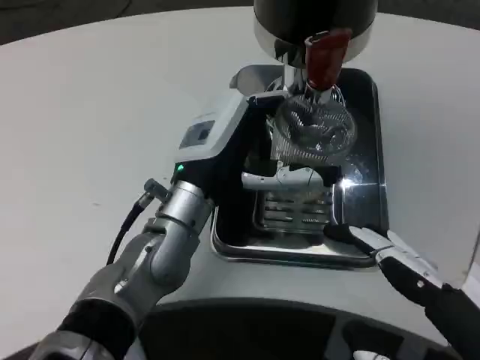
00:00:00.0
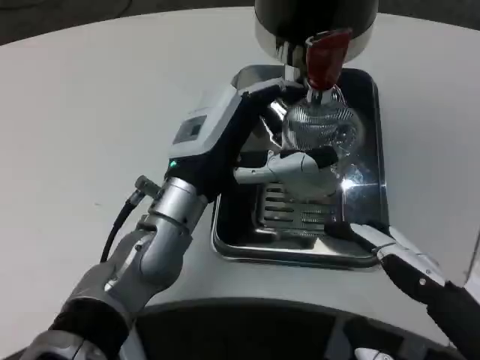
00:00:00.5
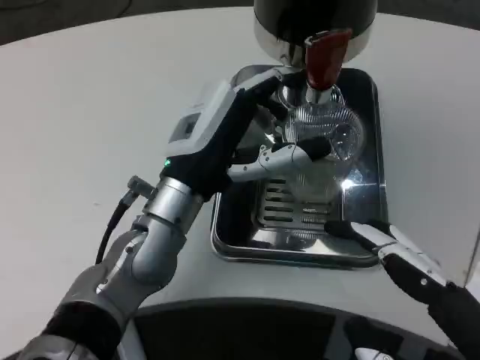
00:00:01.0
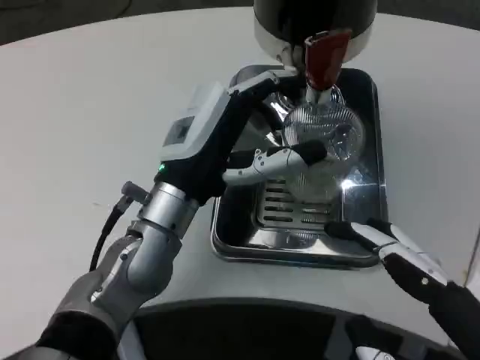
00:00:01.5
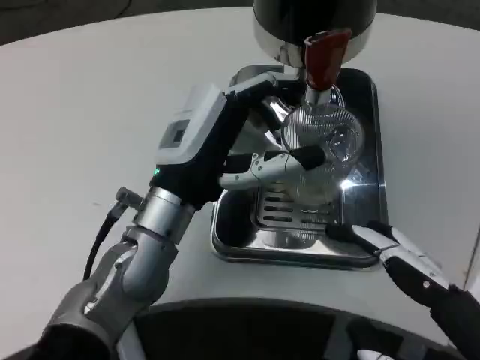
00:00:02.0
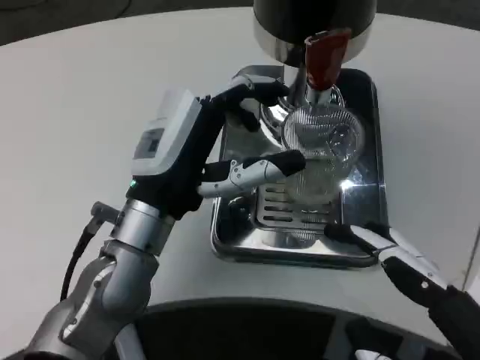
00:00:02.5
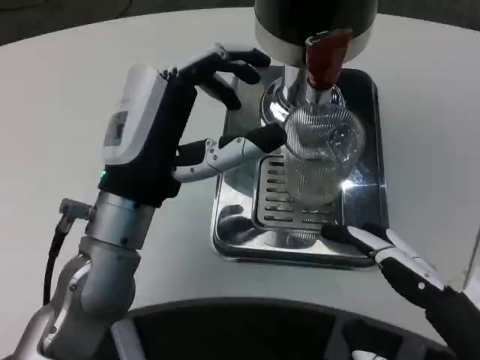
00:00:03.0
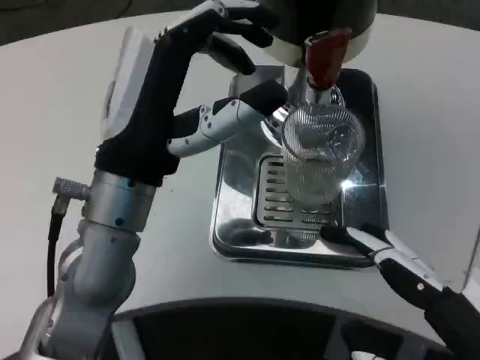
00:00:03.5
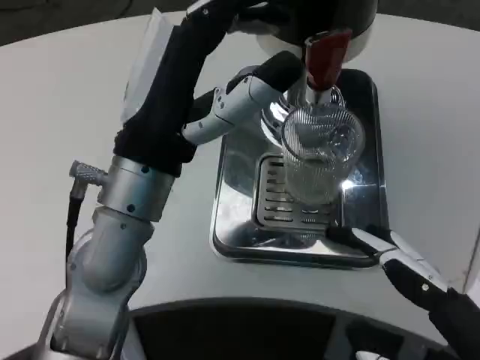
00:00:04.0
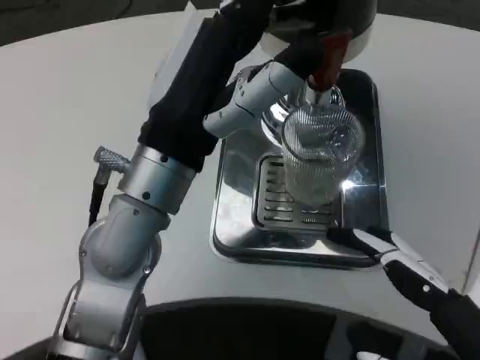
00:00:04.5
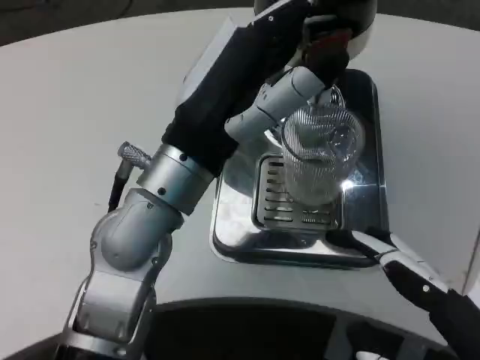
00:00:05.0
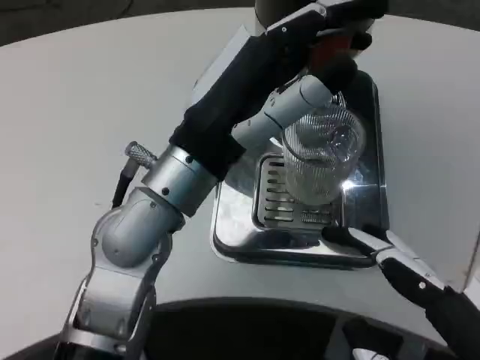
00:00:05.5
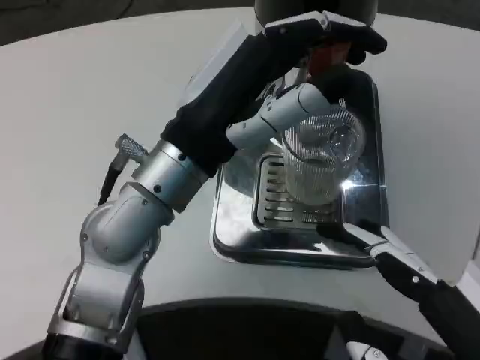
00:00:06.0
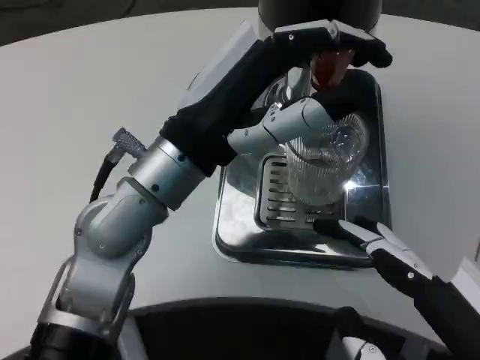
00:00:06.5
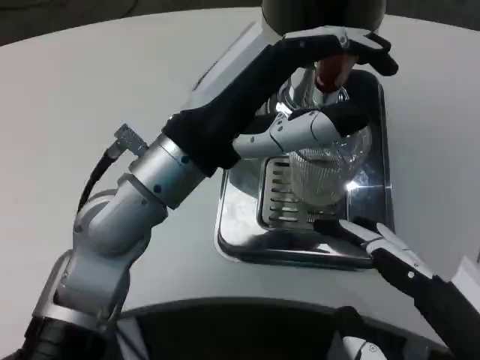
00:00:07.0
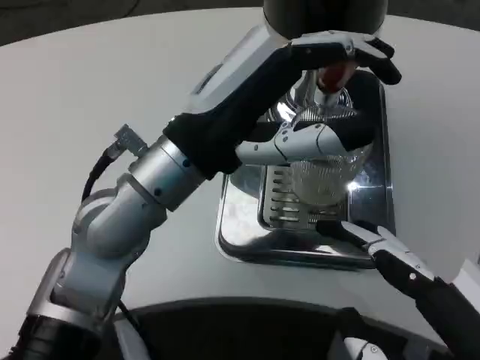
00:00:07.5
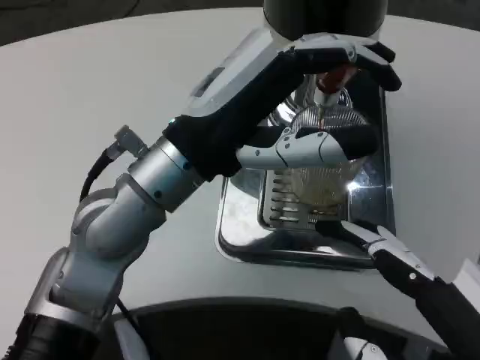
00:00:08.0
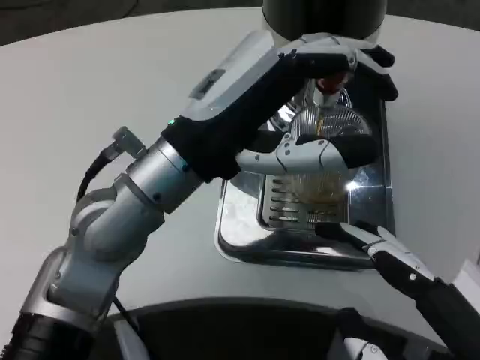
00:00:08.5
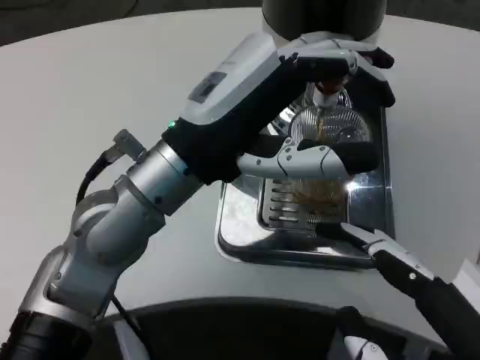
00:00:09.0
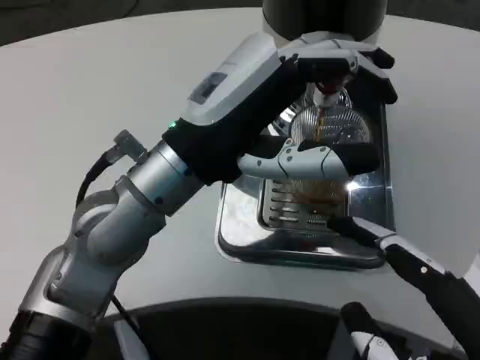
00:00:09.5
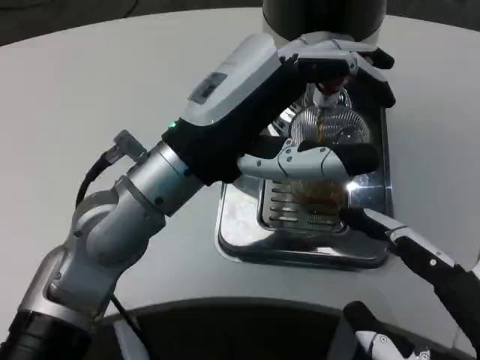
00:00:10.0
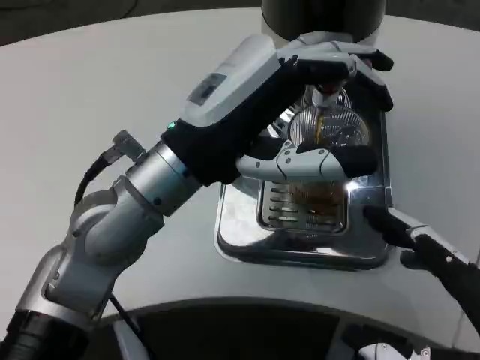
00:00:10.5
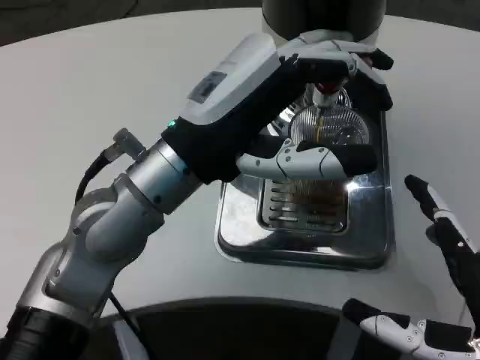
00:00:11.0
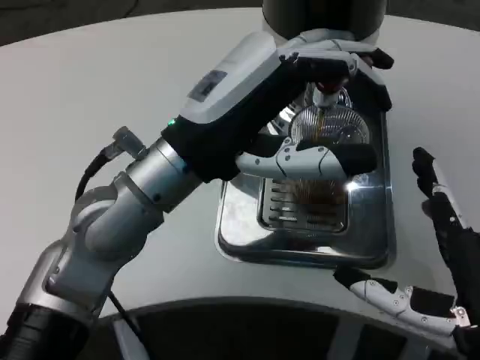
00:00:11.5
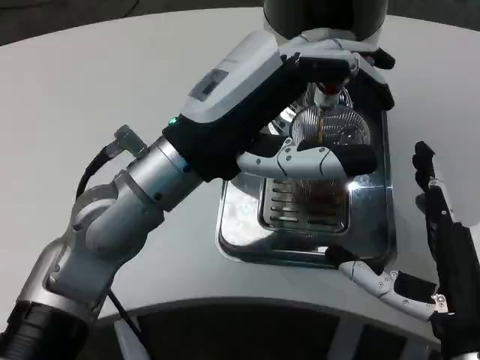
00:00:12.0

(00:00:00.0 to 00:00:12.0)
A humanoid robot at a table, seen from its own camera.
Task of the whole recording: Grasp the cup under the faucet to collect the drink, then remove the cup.
00:00:00.0 - 00:00:02.0: There are only small adjustments of the hands.
00:00:02.0 - 00:00:04.0: The left hand travels upward by roughly 5 cm.
00:00:08.0 - 00:00:10.0: The hands stay close to where they were, moving slightly.
00:00:10.0 - 00:00:12.0: The right hand shifts approximately 10 cm forward and downward.

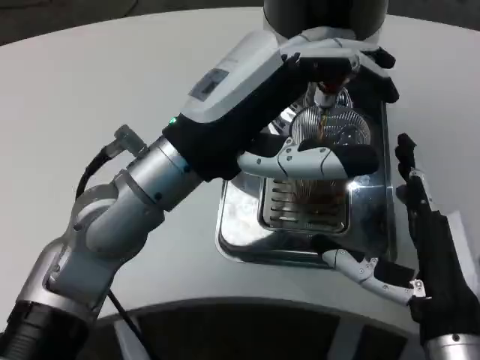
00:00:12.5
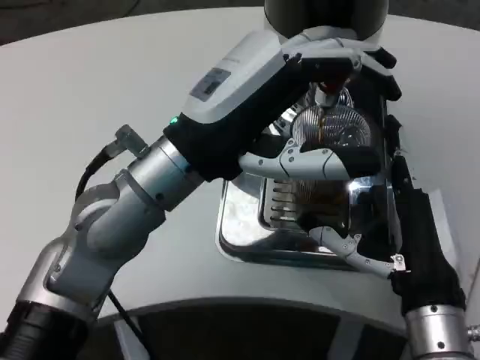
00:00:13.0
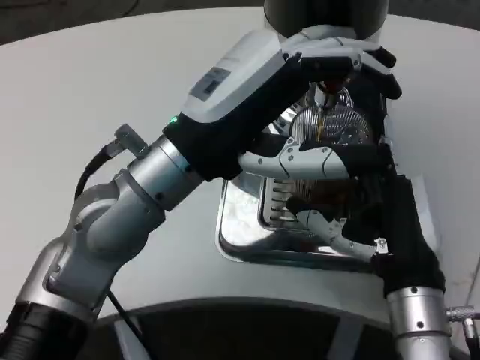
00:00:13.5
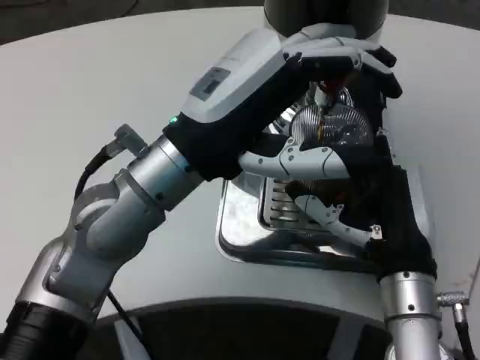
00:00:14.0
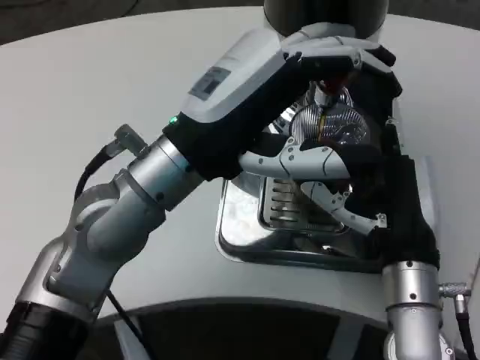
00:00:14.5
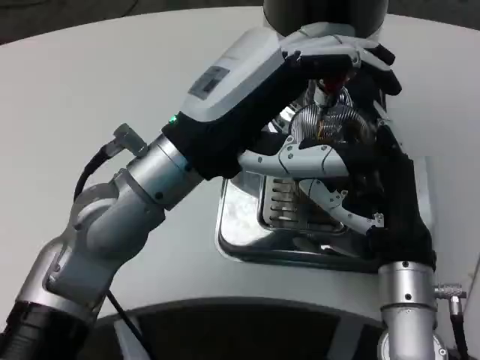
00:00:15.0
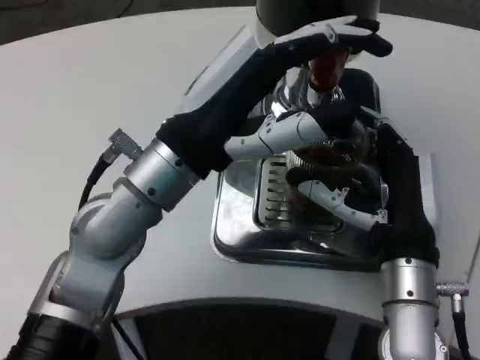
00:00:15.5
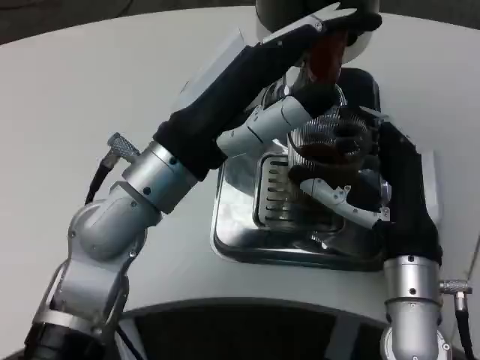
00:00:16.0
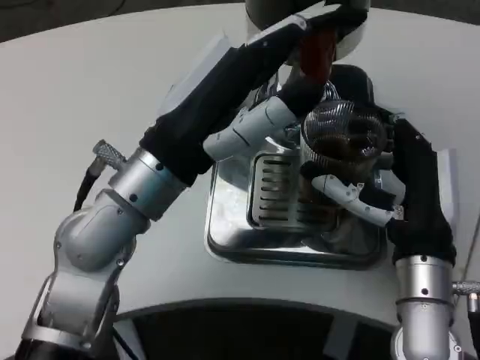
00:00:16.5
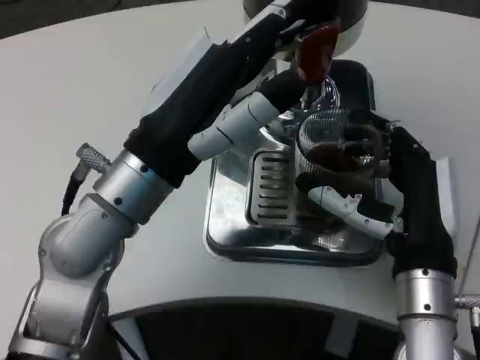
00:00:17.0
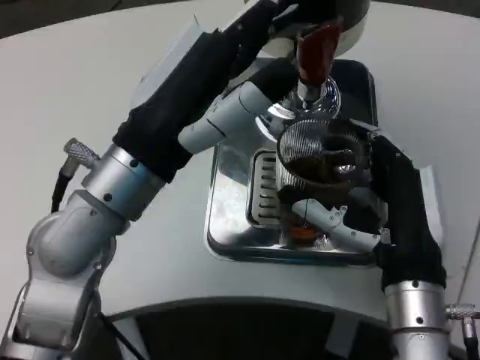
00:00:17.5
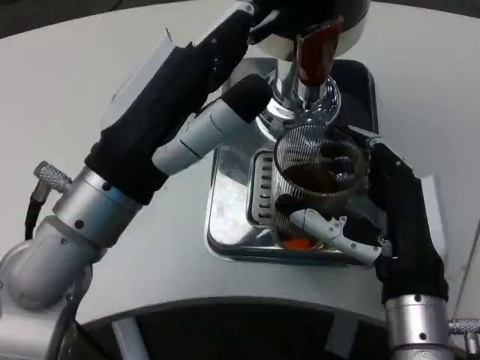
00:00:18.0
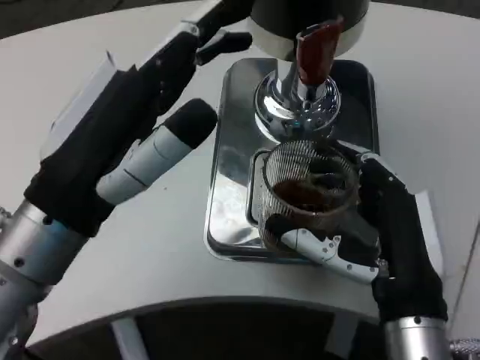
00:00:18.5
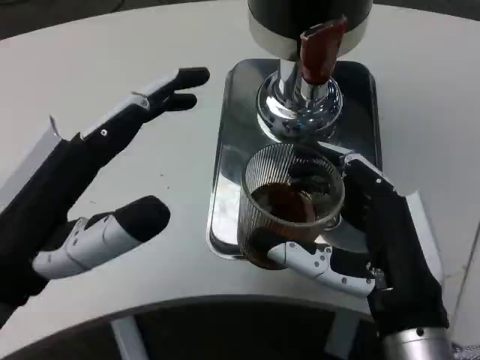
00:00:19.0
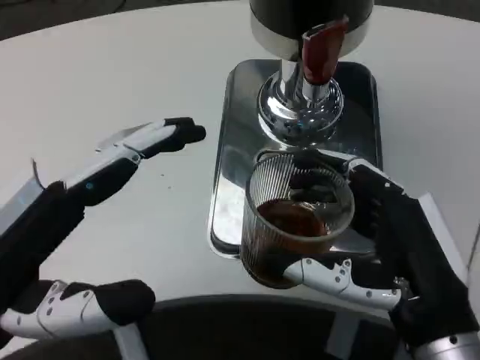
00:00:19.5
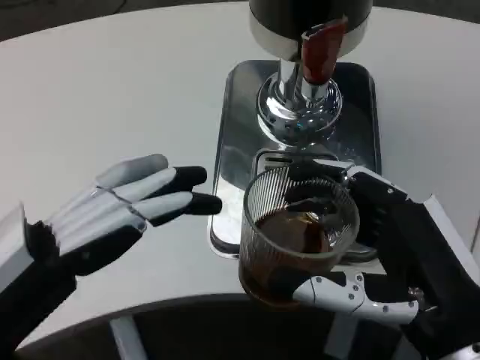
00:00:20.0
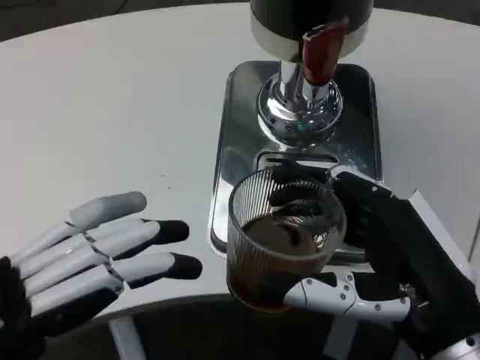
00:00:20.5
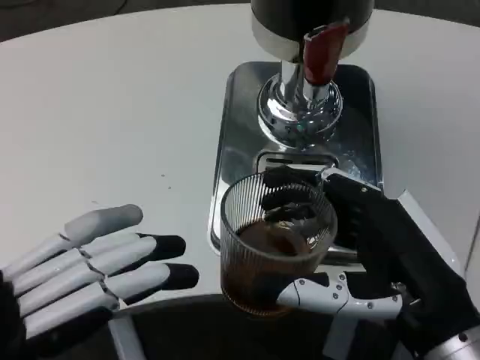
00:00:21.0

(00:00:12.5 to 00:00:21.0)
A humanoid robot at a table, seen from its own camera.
Task of the whole recording: Grasp the cup under the faucet to collect the drink, then remove the cup.
00:00:12.5 - 00:00:14.5: The right hand heads forward, covering roughly 5 cm.
00:00:16.5 - 00:00:19.0: The left hand travels backward and to the left by some 15 cm, while the right hand is displaced backward by some 10 cm.
00:00:19.0 - 00:00:21.0: The right hand changes place by roughly 5 cm. The left hand moves backward and to the left, approximately 10 cm.

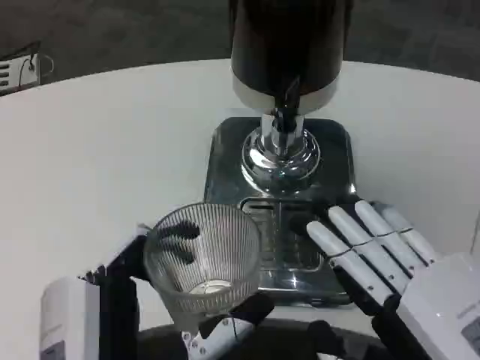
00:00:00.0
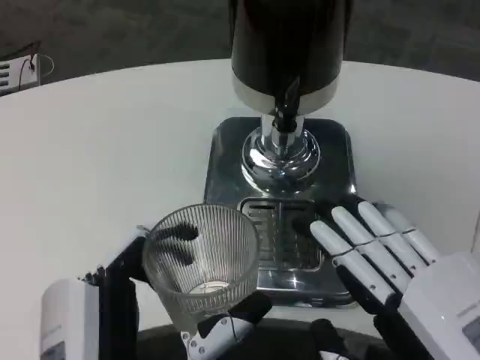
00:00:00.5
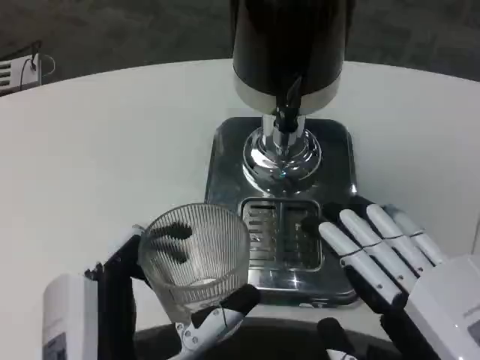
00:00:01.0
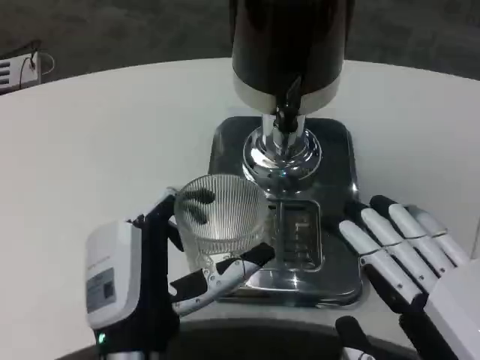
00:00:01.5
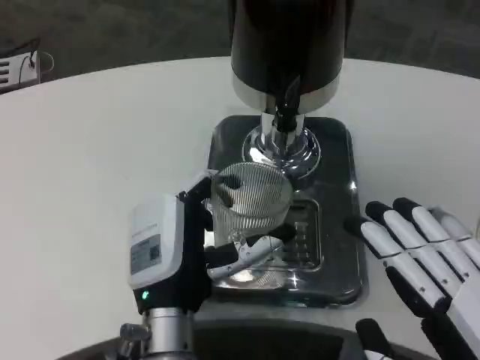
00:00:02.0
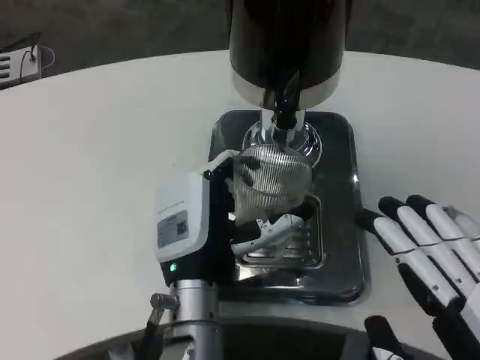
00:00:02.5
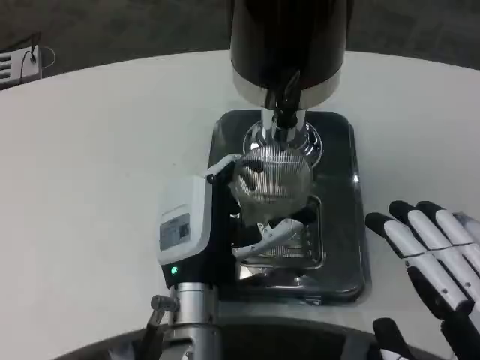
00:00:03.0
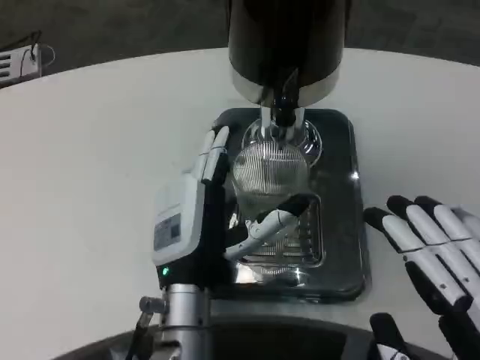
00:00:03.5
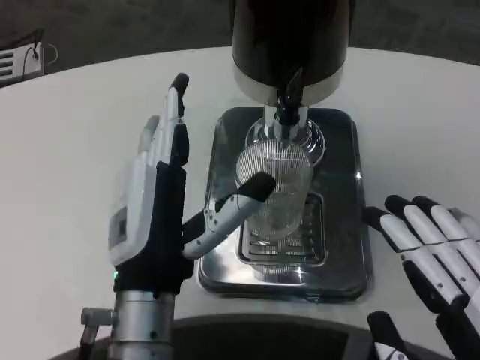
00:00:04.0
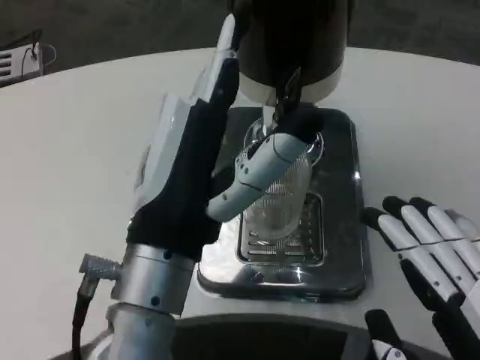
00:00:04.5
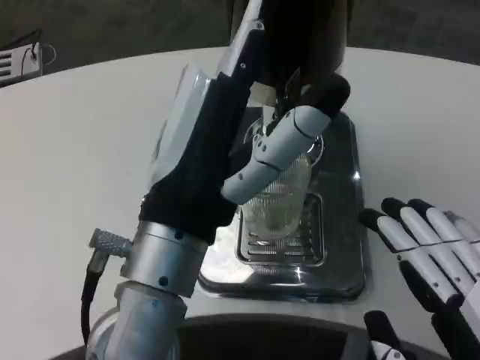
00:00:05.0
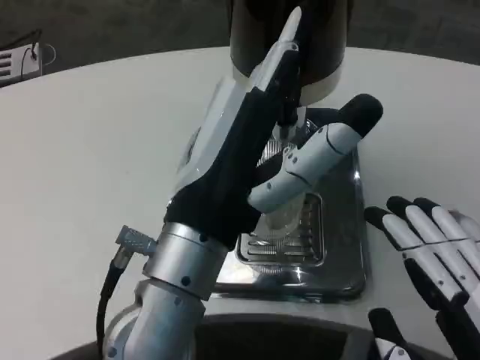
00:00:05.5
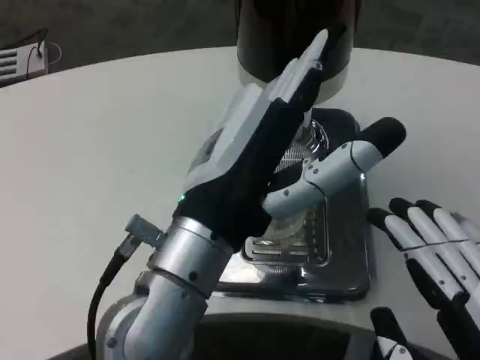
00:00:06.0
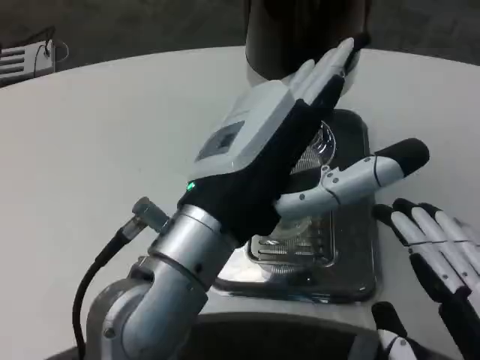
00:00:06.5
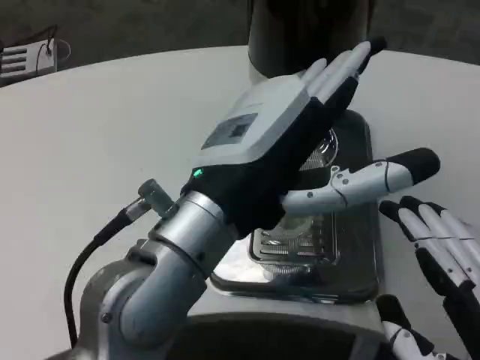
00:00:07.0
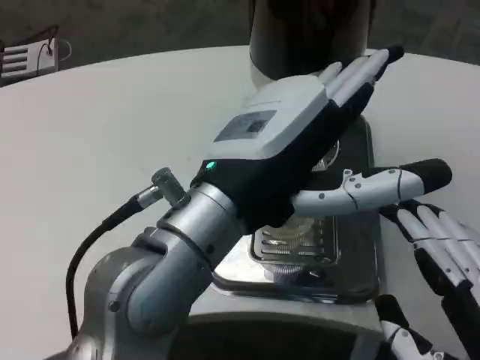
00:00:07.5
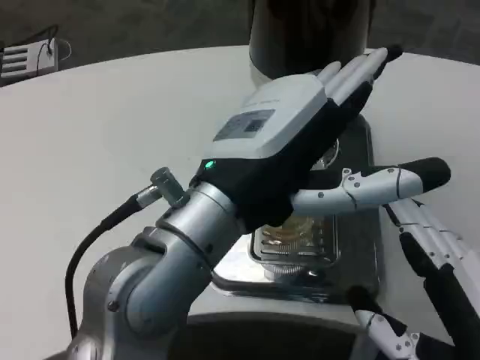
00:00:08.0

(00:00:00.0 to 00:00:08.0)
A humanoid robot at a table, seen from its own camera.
Task of the whole recording: Grasp the cup under the faucet to collect the drink, then remove the cup.
00:00:00.0 - 00:00:02.0: The left hand moves forward, approximately 15 cm.
00:00:02.0 - 00:00:04.0: The left hand heads upward, covering approximately 5 cm.
00:00:04.0 - 00:00:06.0: The left hand moves upward, roughly 10 cm.
